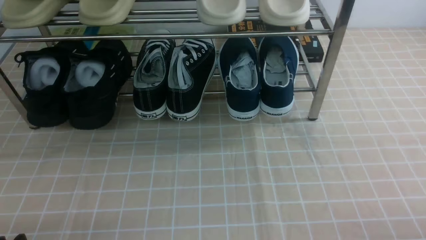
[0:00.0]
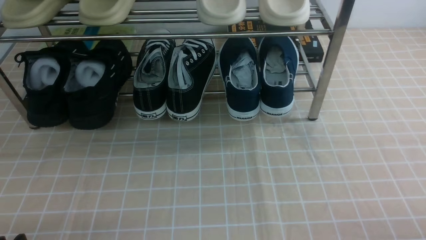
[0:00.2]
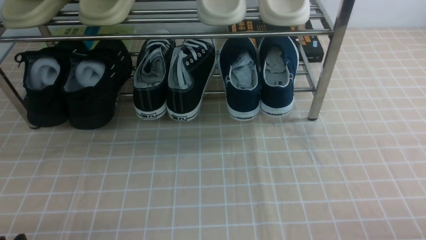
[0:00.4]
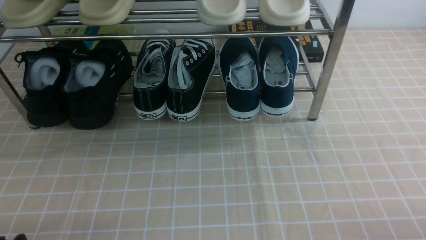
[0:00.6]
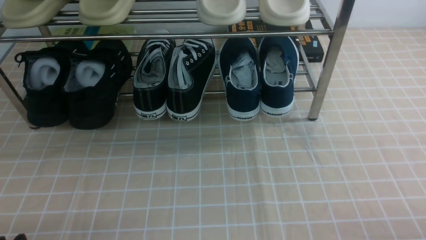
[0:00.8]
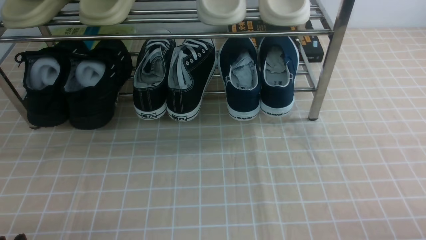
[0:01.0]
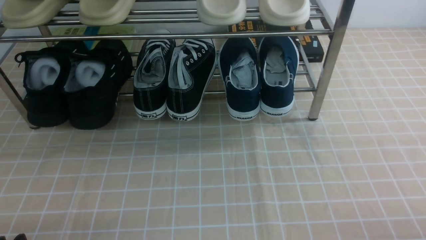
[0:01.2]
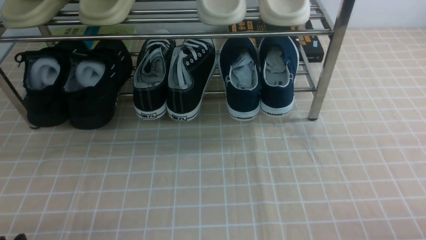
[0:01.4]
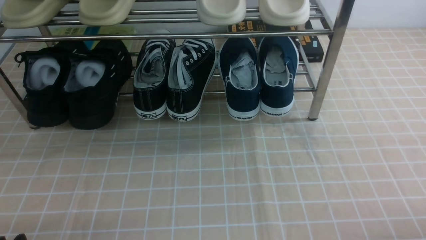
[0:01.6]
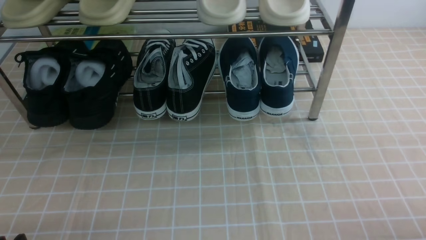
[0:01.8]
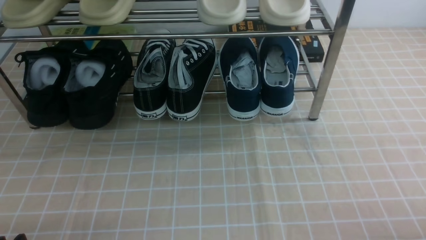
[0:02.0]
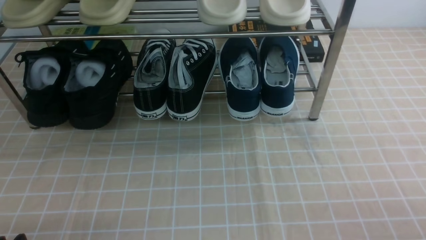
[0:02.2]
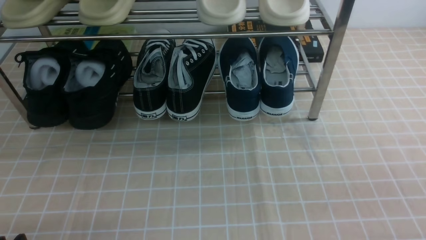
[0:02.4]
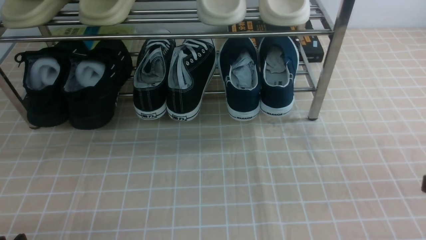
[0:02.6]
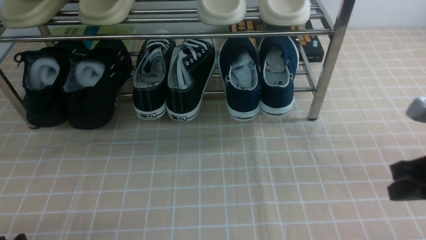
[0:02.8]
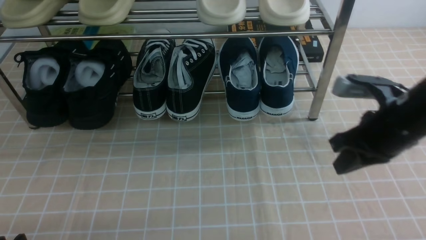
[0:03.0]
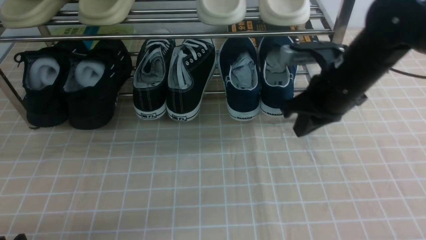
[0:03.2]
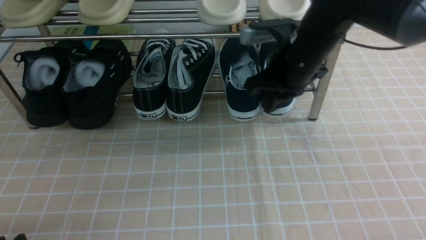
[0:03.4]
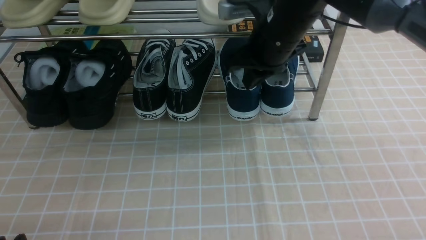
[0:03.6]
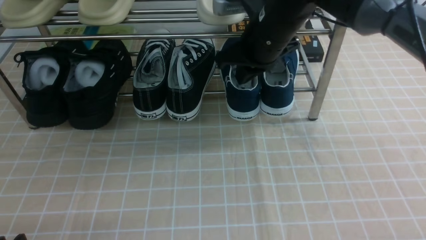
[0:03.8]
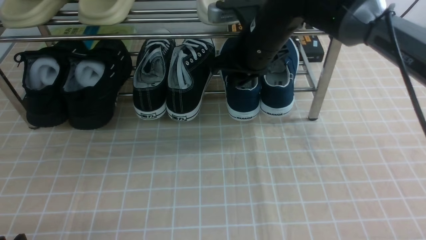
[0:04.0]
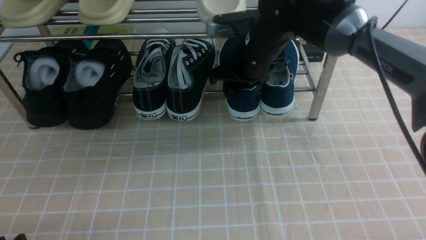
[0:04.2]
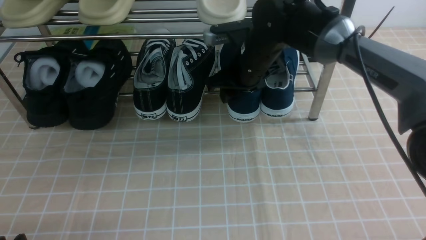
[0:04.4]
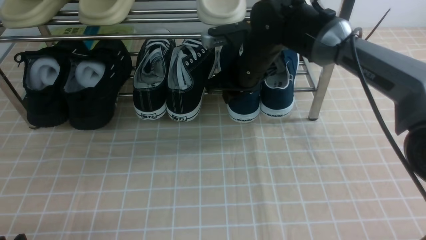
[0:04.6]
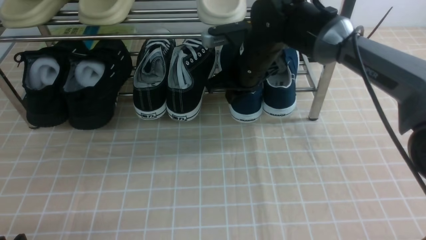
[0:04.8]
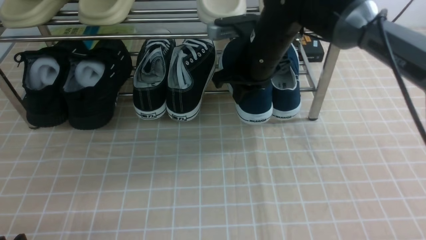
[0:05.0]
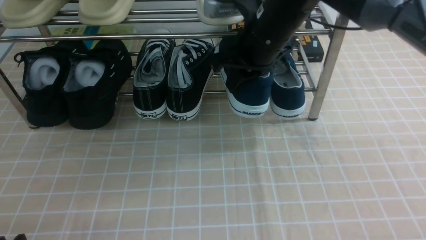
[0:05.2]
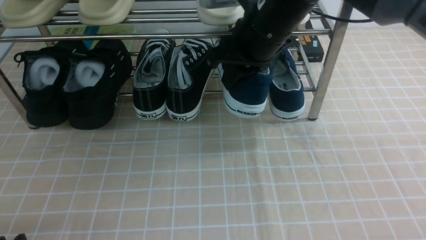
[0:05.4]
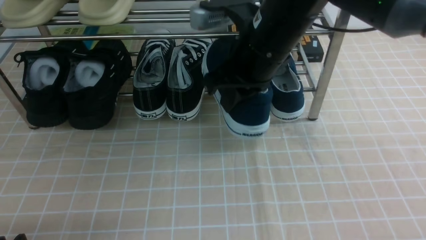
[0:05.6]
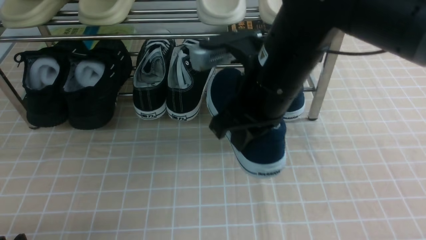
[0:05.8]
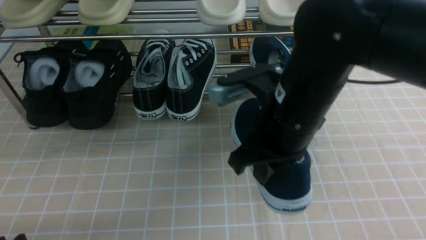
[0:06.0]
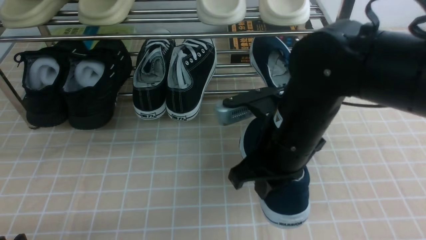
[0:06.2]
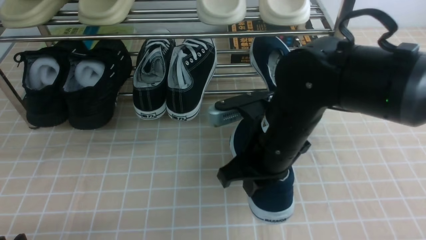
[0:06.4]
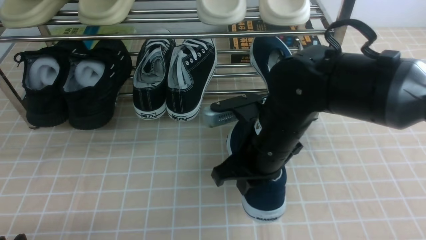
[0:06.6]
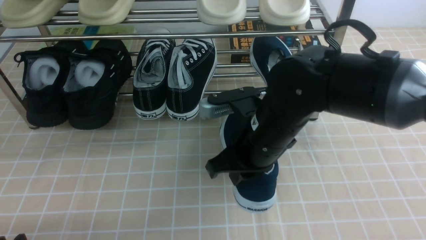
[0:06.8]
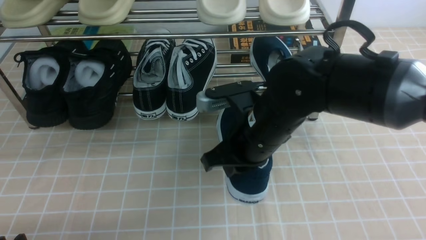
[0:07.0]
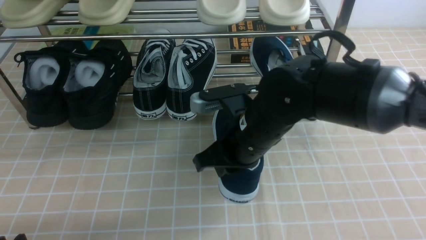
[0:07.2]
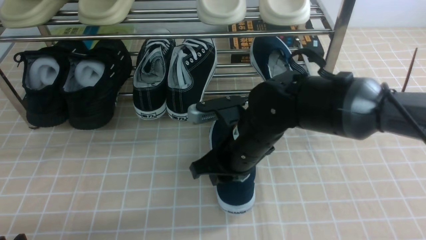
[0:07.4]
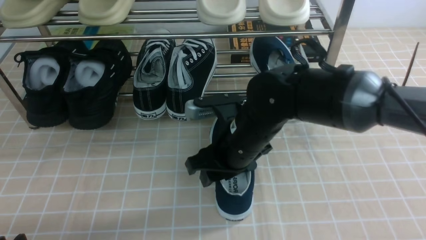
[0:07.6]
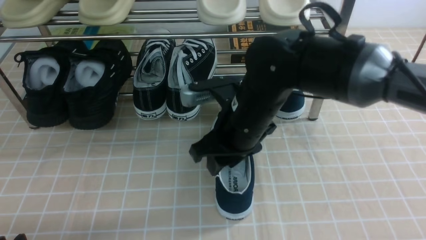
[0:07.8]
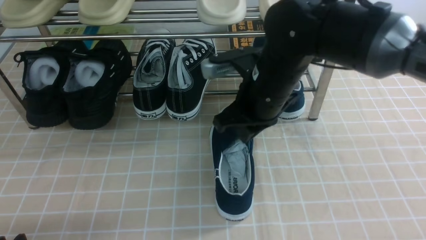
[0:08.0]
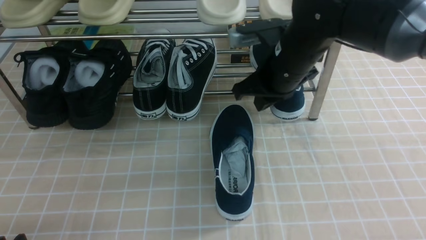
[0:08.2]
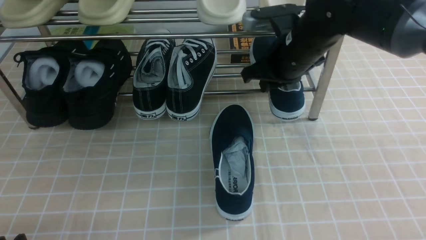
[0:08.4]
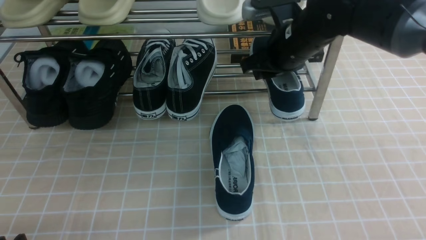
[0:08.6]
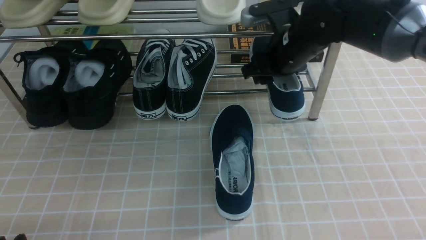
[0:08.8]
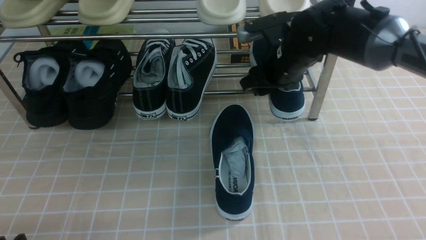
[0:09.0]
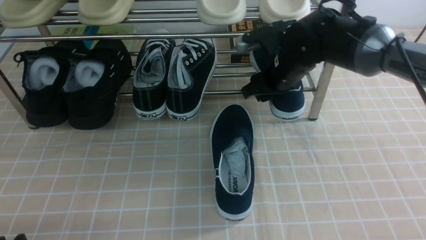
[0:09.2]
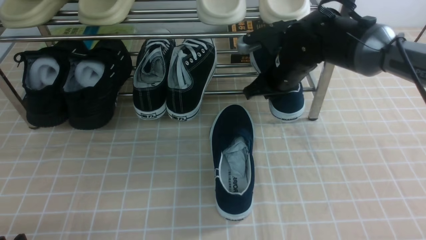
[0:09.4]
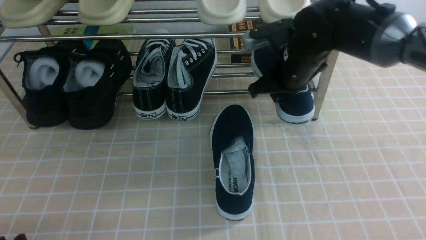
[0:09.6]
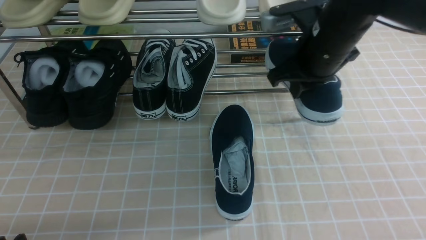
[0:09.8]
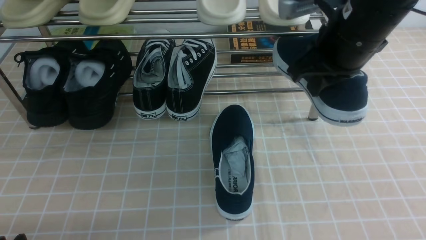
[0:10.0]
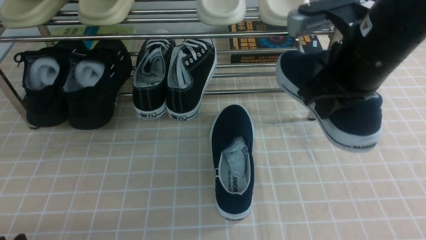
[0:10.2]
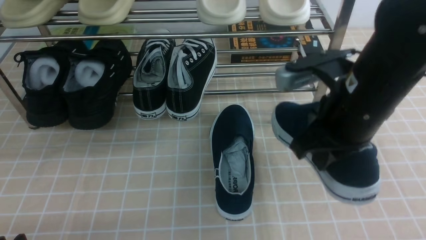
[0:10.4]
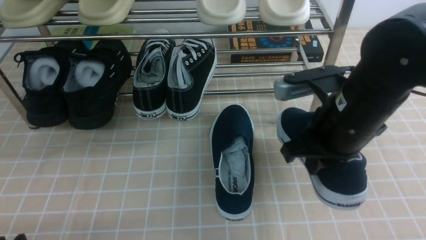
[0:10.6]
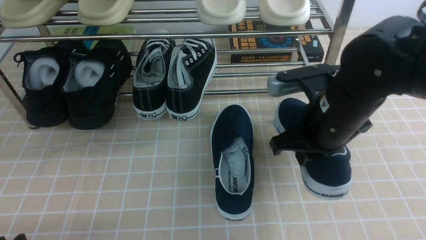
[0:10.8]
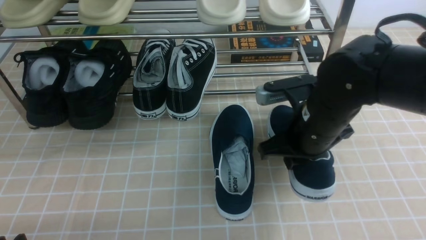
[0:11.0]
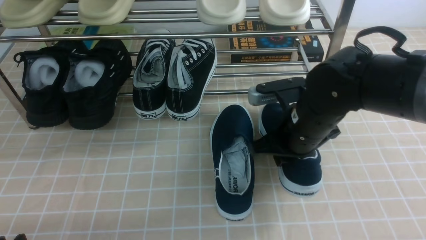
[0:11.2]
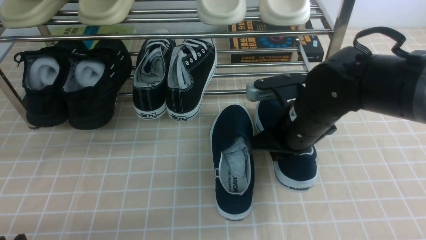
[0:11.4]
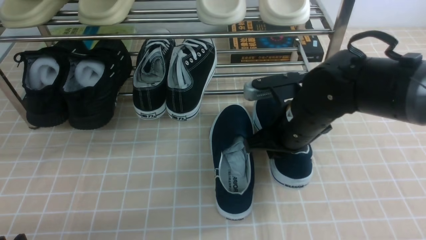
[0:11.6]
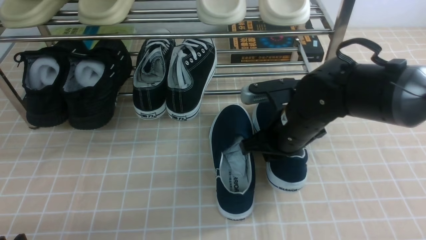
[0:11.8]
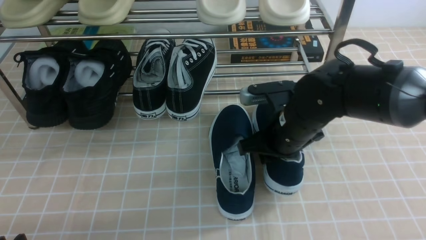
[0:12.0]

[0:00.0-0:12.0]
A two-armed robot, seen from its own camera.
Step, 0:00.0 to 0:04.6: use the right arm to clamp a shoe on the right side of the shoe rack.
Step, 0:05.0 to 0:07.8: use the right arm to take out the clamped shoe from the shoe rack and put it down.
Step, 0:08.0 to 0:09.4: use the right arm to clamp a shoe on the right side of the shoe rack.
0:01.6 to 0:03.0: The right gripper is displaced forward, upward and to the left by about 25 cm, and closes.
0:03.0 to 0:04.4: The right gripper moves to the left and forward, about 20 cm, and opens its fingers.
0:04.4 to 0:06.0: The right gripper goes about 20 cm backward, and closes up.
0:06.0 to 0:07.6: The right gripper goes about 5 cm downward, and opens.
0:07.6 to 0:09.0: The right gripper moves forward and to the right, some 15 cm, and closes and opens again.
0:09.0 to 0:10.4: The right gripper moves backward, some 15 cm, and closes.
0:10.4 to 0:12.0: The right gripper goes about 10 cm downward and forward.

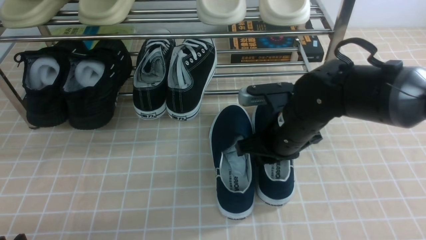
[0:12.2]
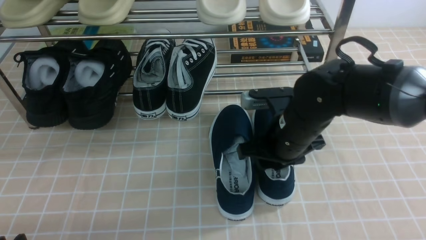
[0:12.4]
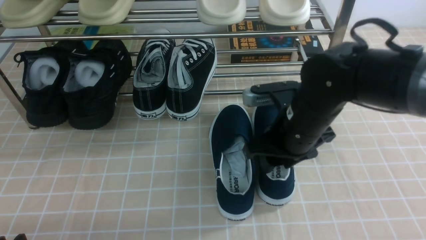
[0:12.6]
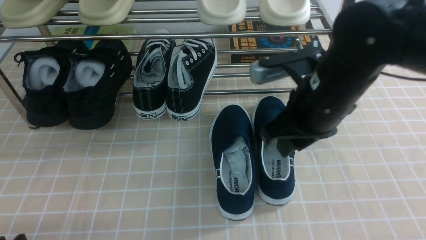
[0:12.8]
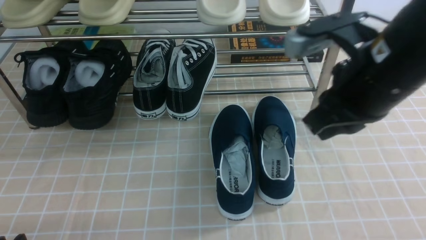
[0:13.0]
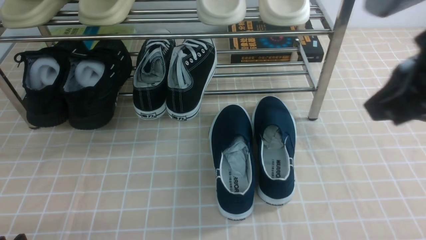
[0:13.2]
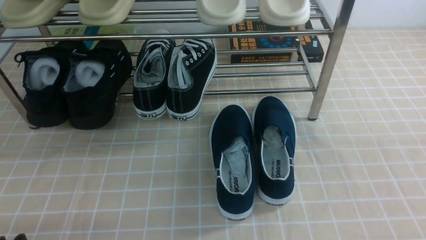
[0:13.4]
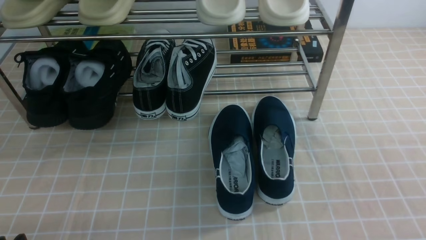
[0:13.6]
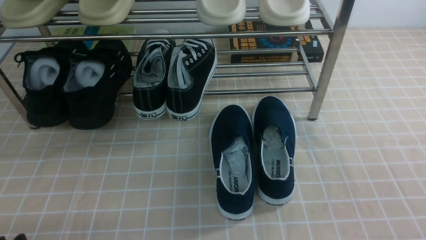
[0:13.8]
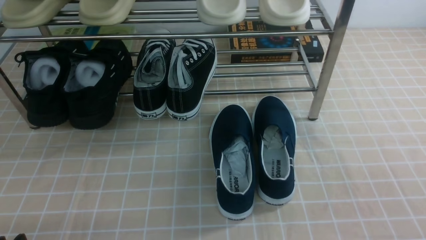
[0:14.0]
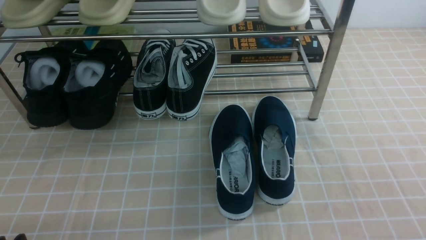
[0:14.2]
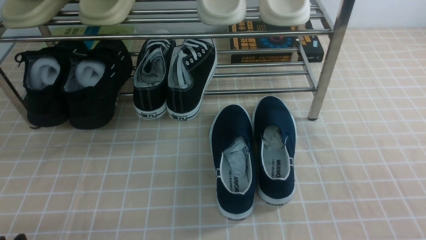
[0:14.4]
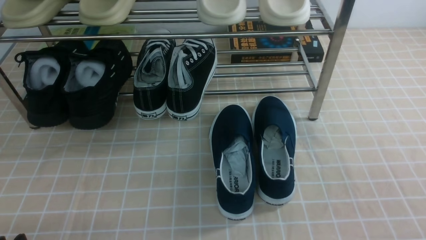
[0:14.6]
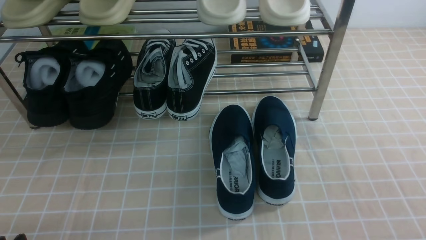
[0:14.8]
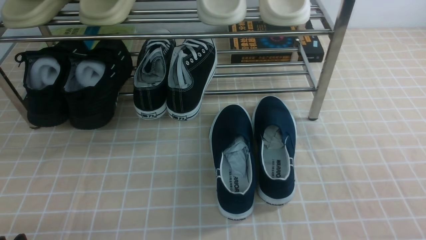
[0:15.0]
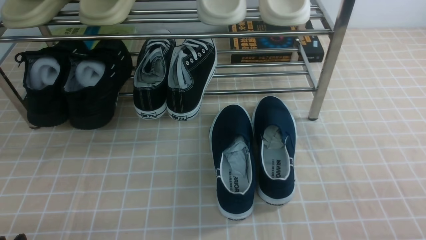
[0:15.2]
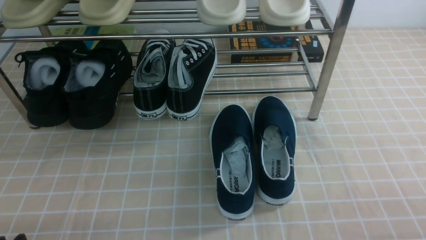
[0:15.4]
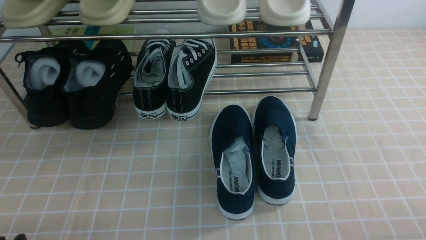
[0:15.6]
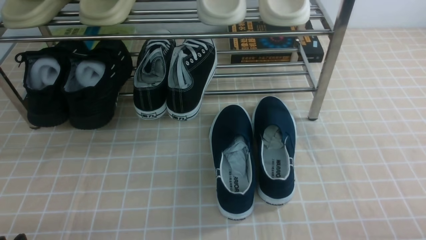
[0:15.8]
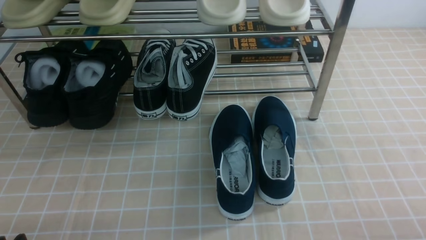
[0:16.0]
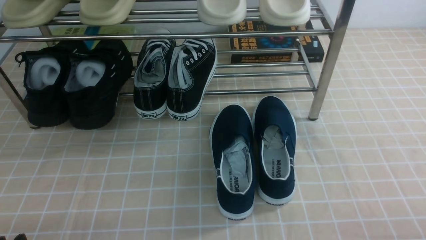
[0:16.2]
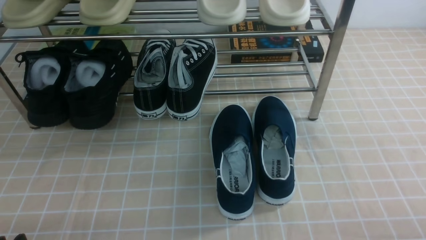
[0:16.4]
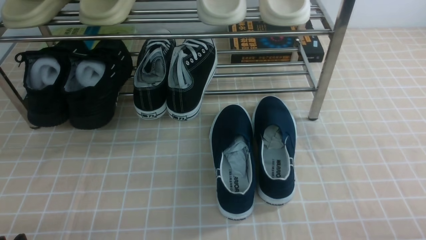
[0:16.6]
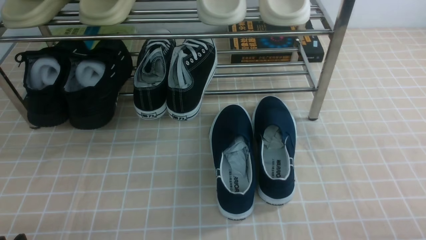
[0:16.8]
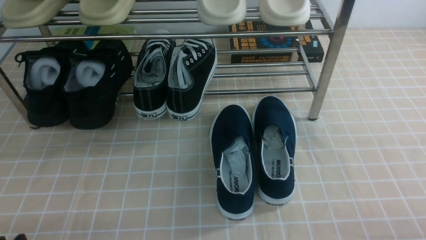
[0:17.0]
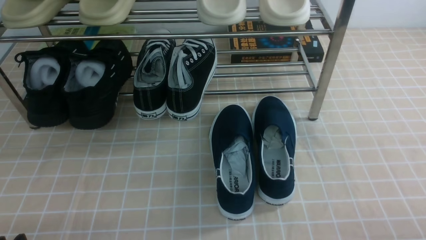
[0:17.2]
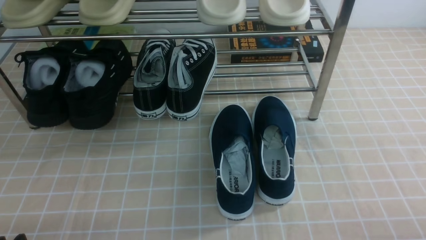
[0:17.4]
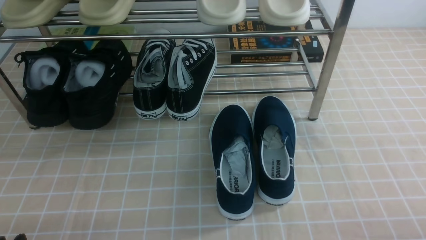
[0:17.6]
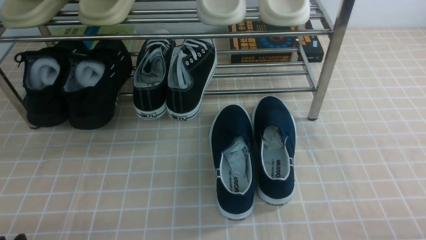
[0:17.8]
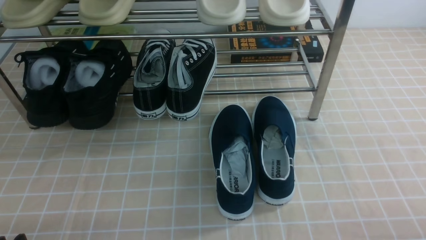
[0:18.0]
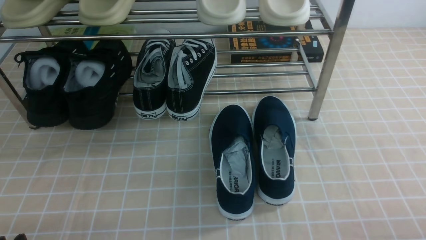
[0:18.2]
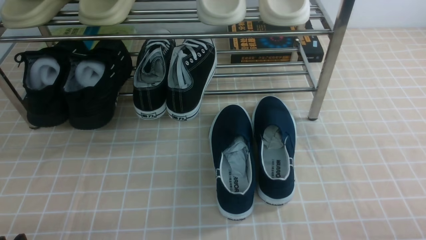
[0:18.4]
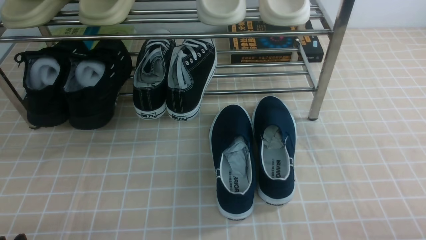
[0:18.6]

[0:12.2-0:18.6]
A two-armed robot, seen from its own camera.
0:12.2 to 0:13.8: The right gripper moves backward, to the right and upward, some 35 cm, and closes up.
0:17.0 to 0:18.6: Neither gripper changes place.
